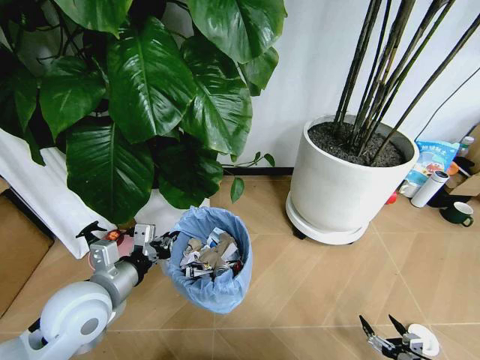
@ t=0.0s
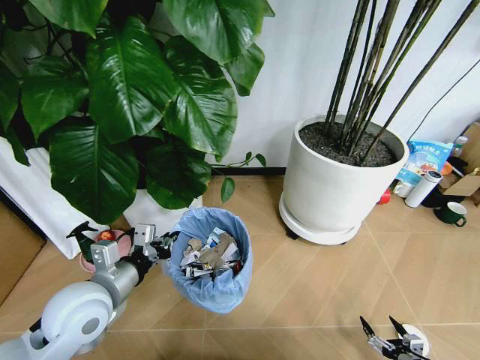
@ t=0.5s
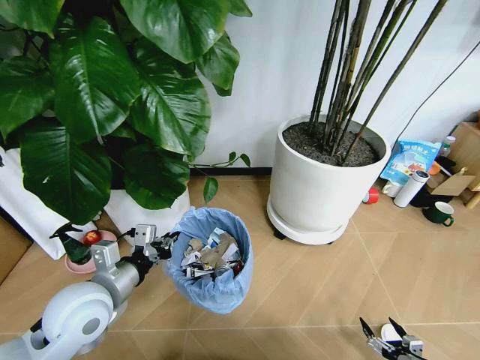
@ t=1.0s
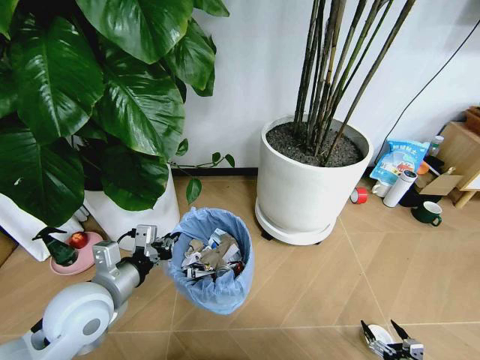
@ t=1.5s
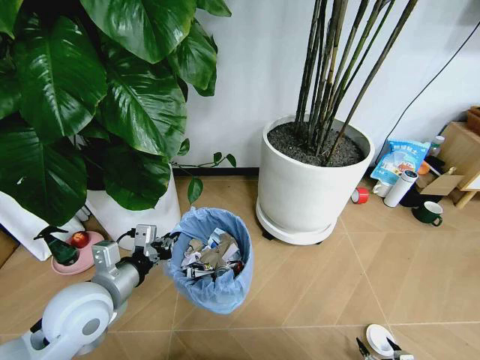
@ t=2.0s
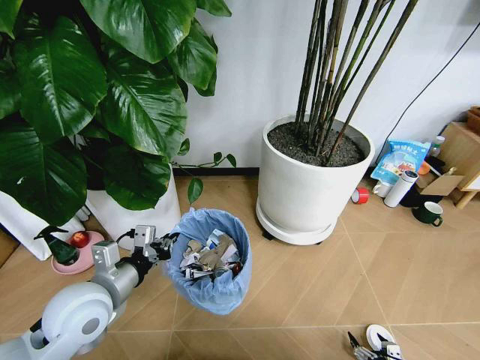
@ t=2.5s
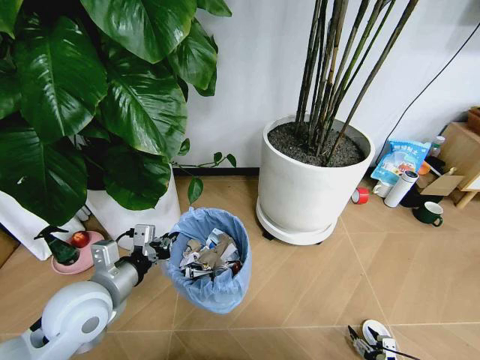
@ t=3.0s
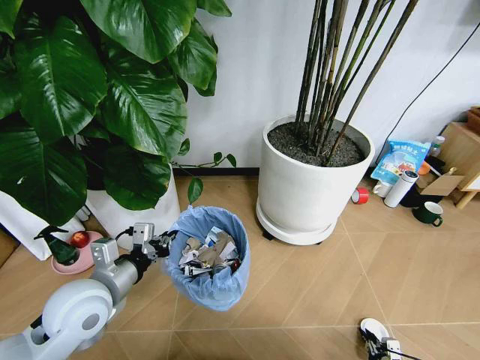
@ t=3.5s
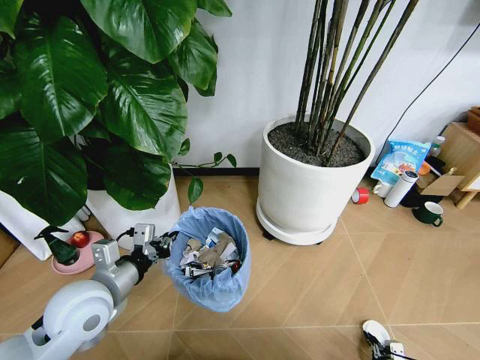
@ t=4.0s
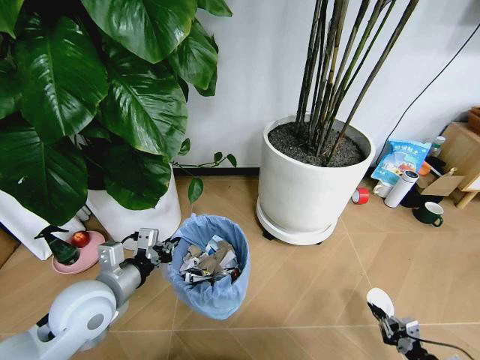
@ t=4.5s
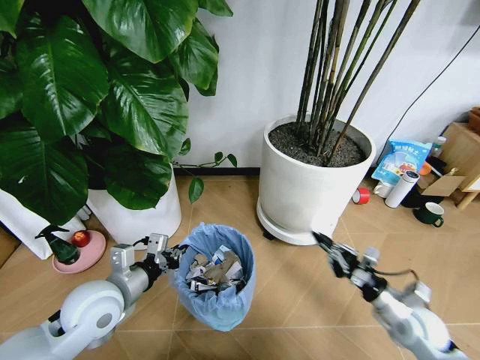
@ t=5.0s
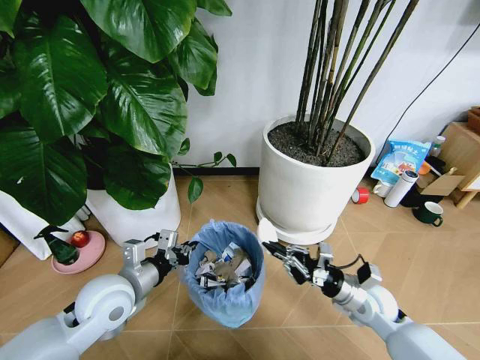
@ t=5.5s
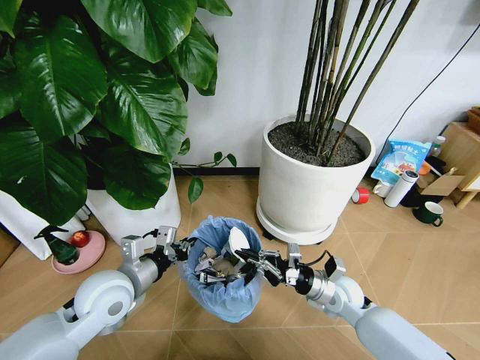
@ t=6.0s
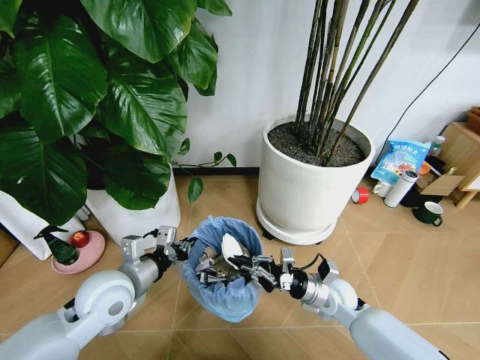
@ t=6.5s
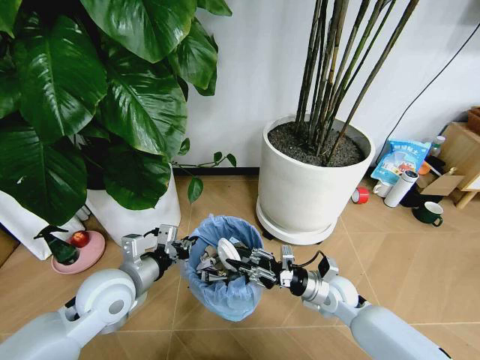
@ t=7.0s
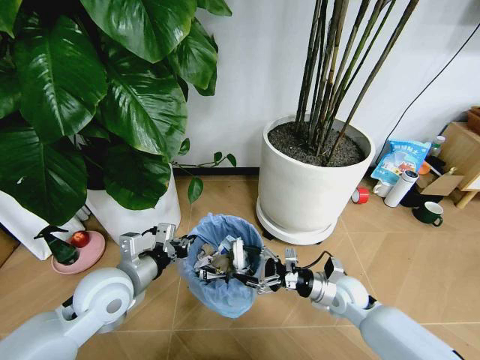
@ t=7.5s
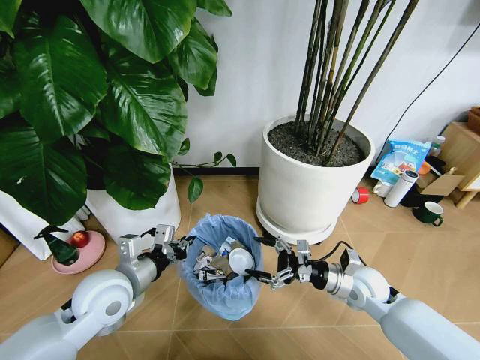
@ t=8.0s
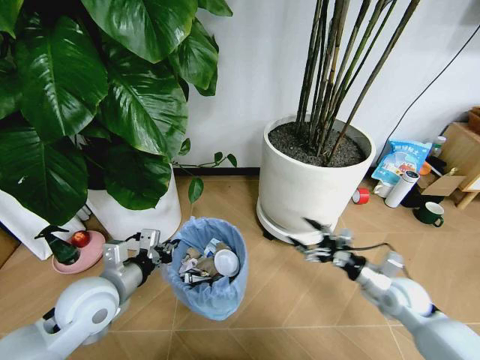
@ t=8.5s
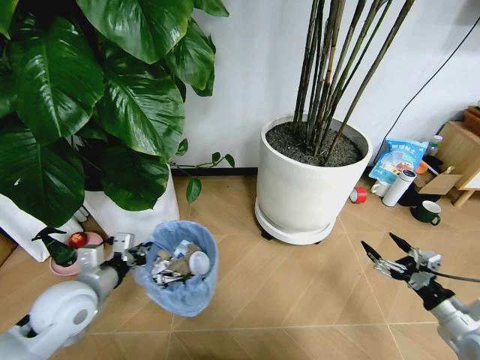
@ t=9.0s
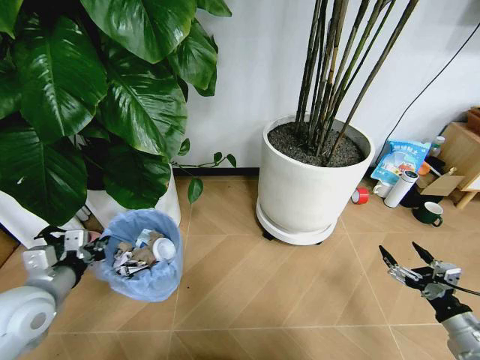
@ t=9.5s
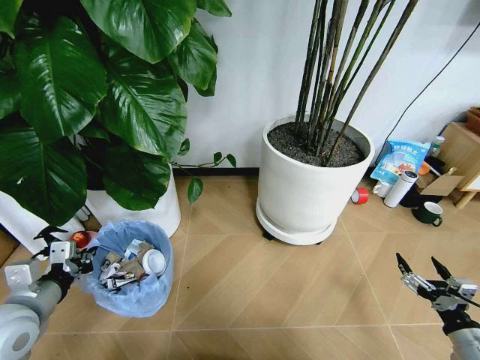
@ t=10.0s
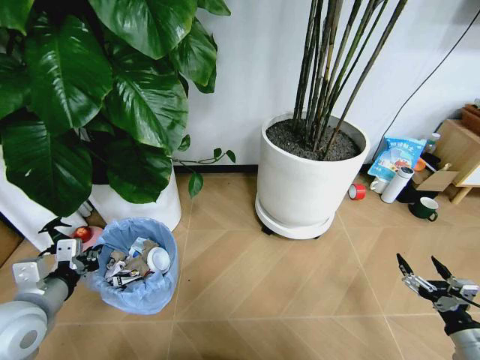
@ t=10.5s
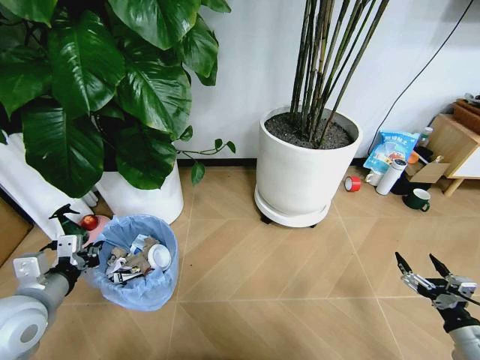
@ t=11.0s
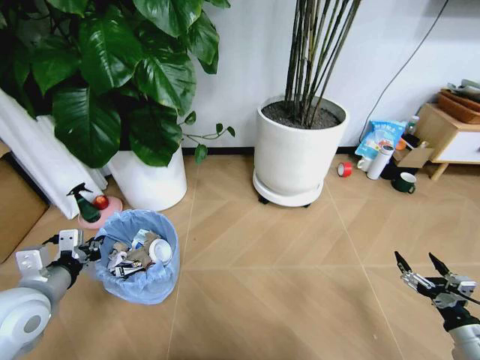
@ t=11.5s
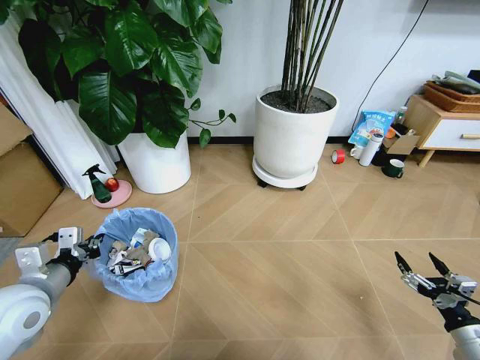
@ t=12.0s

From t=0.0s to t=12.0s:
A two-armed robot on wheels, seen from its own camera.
Task of the whole recording: Pick up the trash bin and place the garbage on the floor into it.
From t=2.0s to t=4.0s: The right gripper closes its fingers.
From t=4.0s to t=6.0s: The right gripper is displaced forward, to the left and upward by some 35 cm.
From t=6.0s to t=8.0s: The right gripper changes place by approximately 5 cm, and opens up.
From t=8.0s to t=10.0s: The left gripper travels to the left and backward by approximately 15 cm. The right gripper moves backward and to the right, roughly 25 cm.

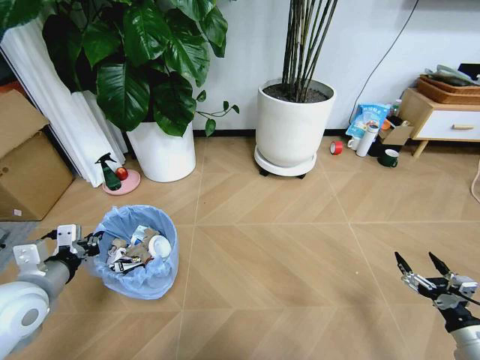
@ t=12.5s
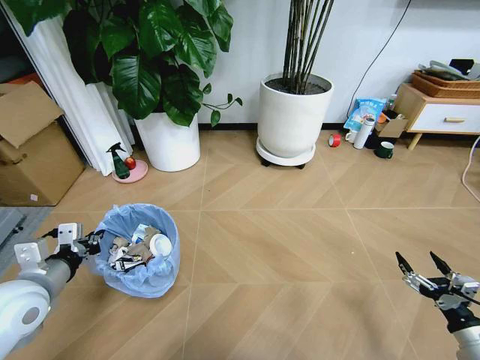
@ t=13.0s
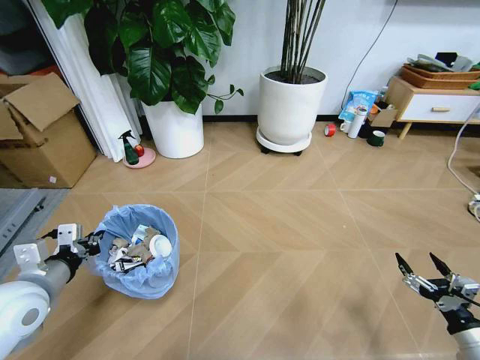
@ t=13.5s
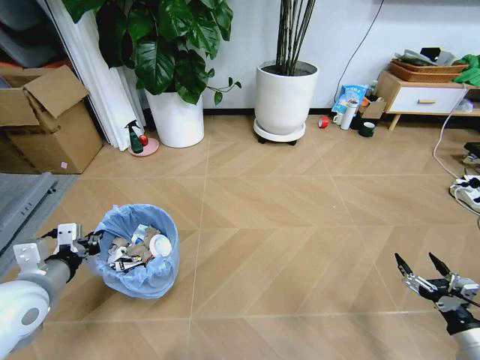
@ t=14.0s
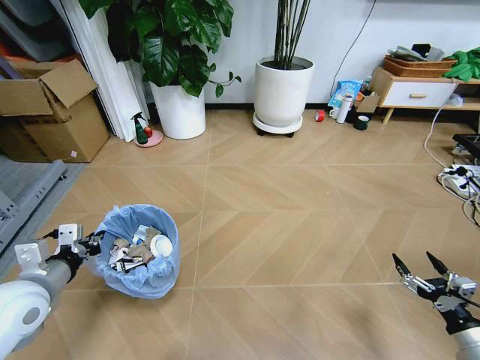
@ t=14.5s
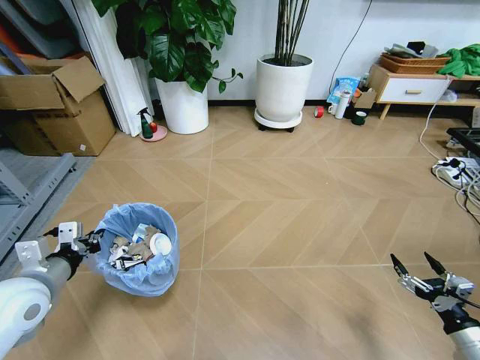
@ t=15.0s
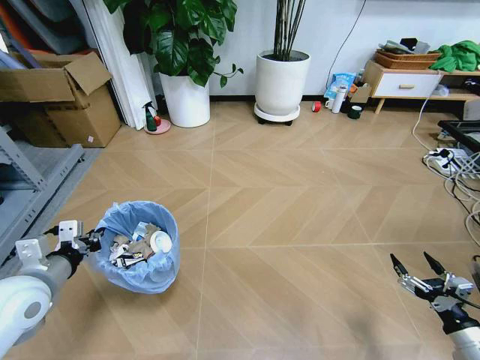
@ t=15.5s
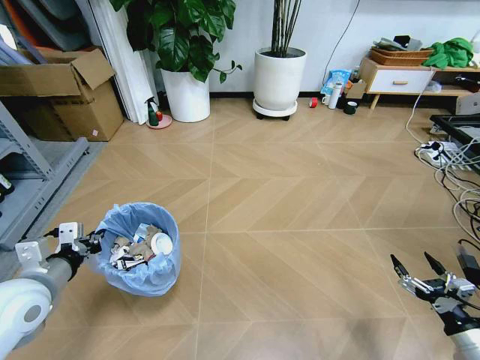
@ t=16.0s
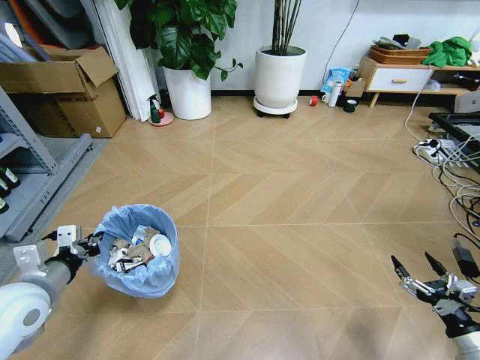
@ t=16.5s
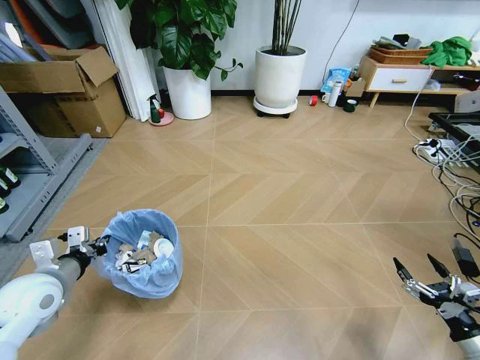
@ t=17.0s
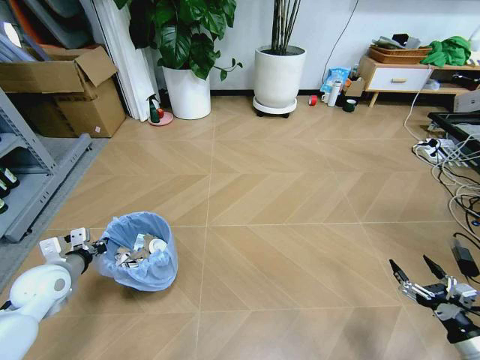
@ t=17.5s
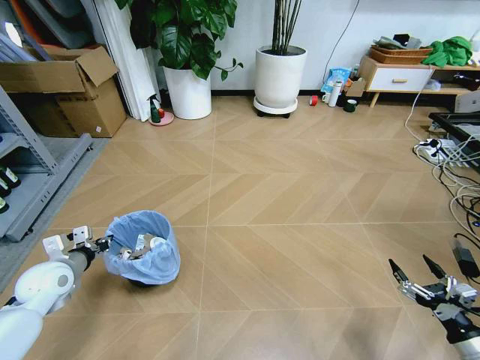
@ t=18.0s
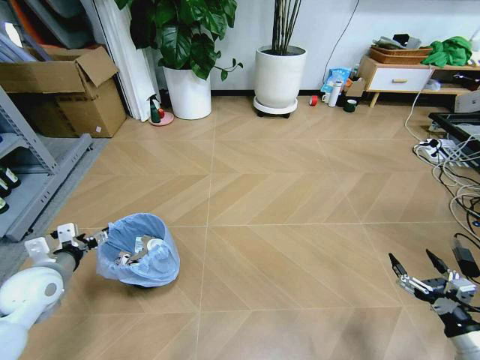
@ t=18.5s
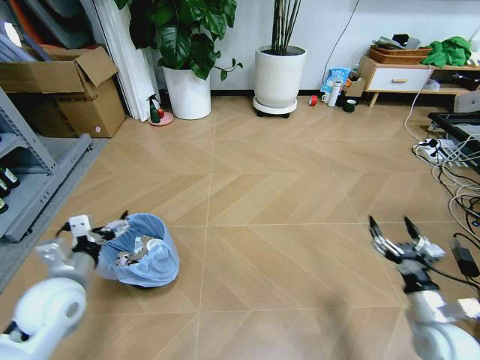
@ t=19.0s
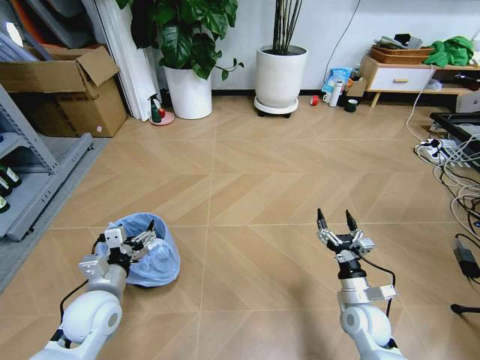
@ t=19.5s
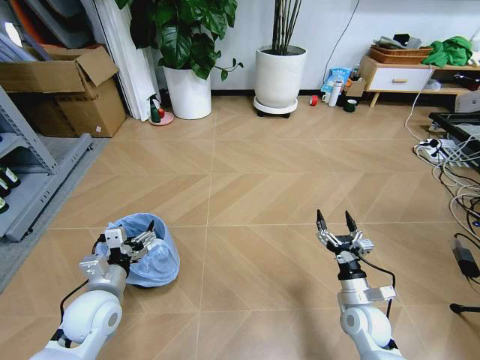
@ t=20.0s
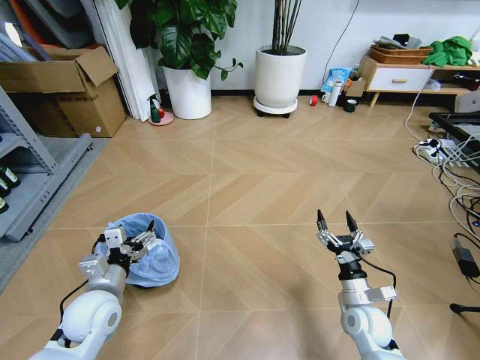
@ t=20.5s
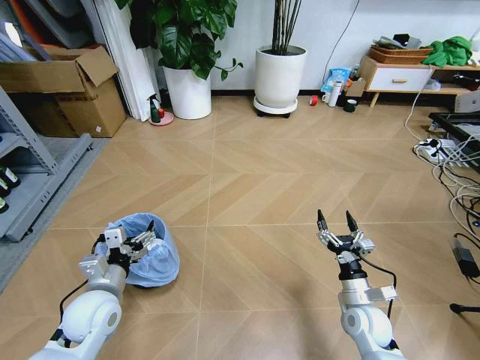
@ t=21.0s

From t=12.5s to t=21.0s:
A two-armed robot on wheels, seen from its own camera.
Task of the whole recording: Pick up the trash bin and place the garbage on the floor into it.
From t=16.5s to t=19.0s: The left gripper opens up; the right gripper moves to the left and forward, some 10 cm.
From t=19.0s to t=21.0s: The left gripper travels downward by approximately 5 cm; the right gripper heads to the left, downward and forward, covering approximately 15 cm.
